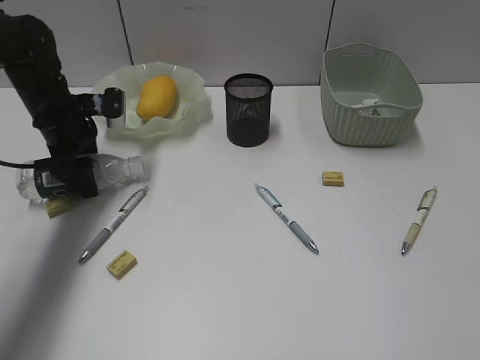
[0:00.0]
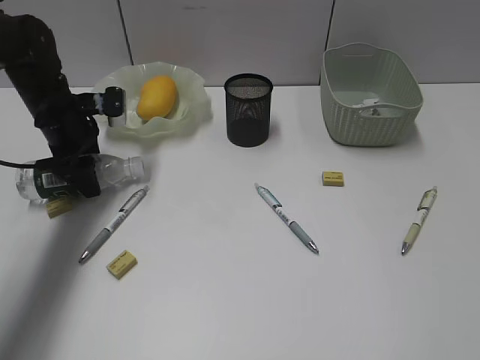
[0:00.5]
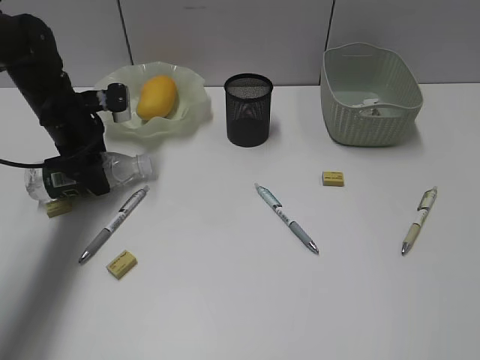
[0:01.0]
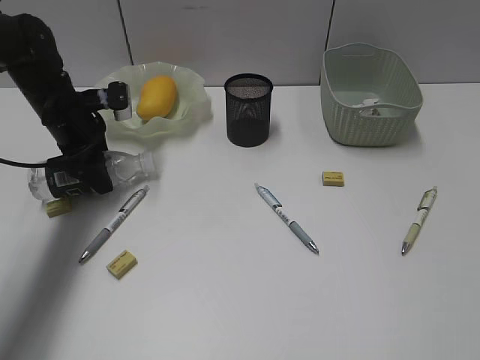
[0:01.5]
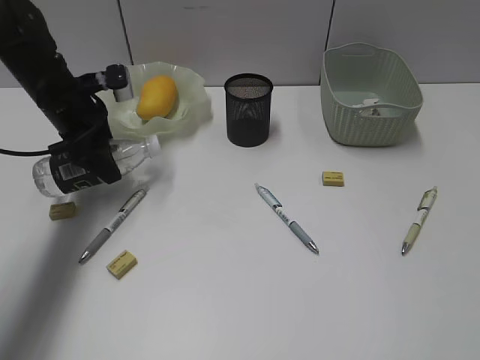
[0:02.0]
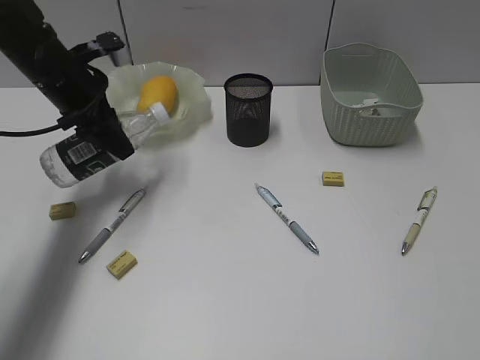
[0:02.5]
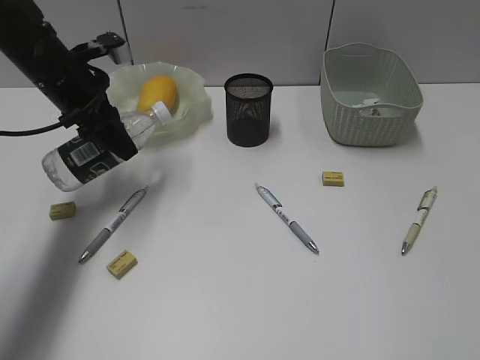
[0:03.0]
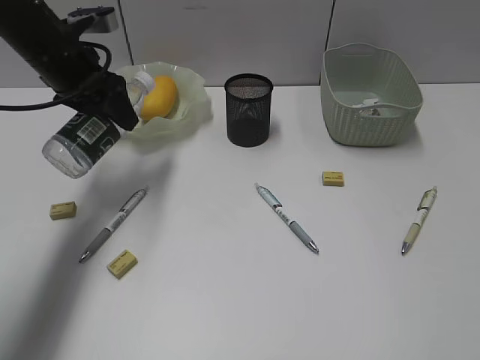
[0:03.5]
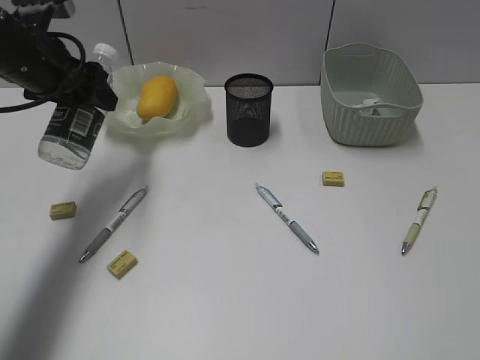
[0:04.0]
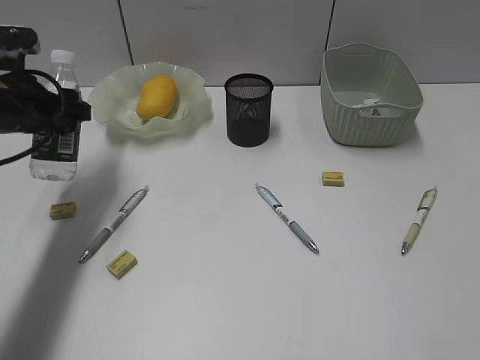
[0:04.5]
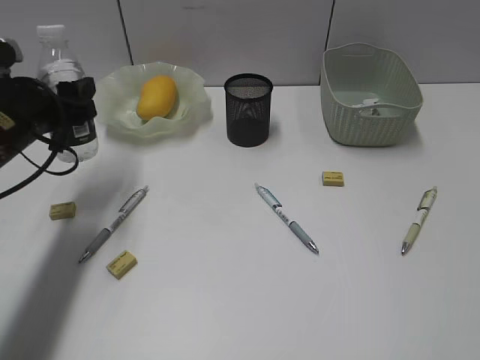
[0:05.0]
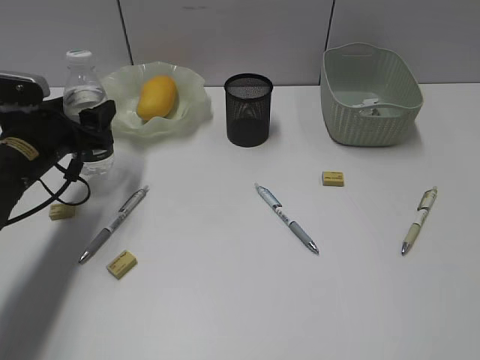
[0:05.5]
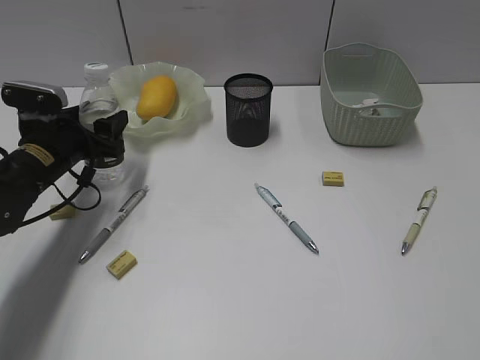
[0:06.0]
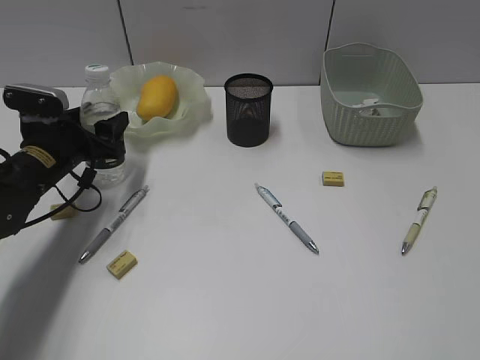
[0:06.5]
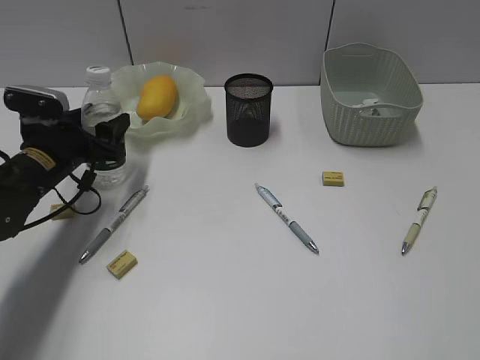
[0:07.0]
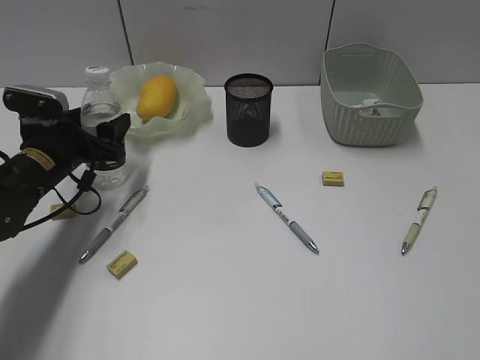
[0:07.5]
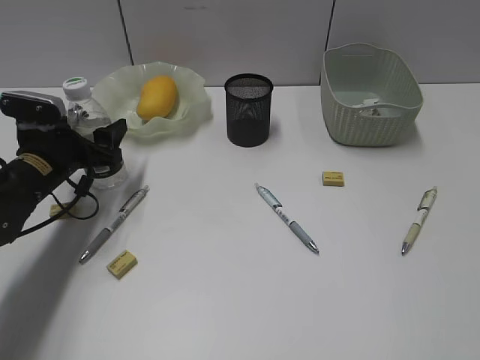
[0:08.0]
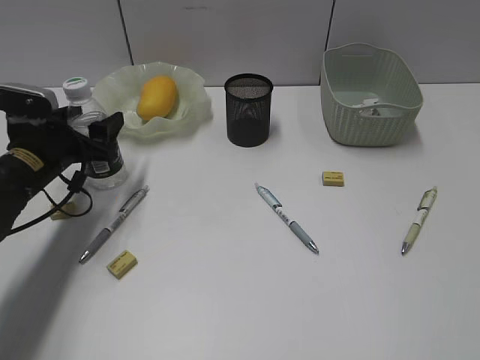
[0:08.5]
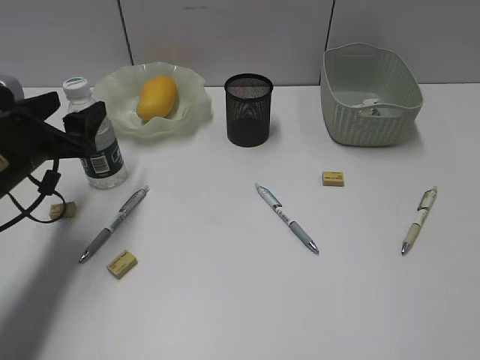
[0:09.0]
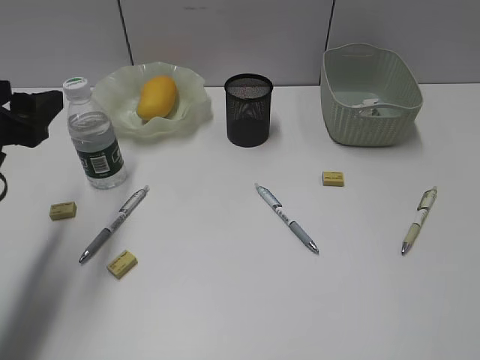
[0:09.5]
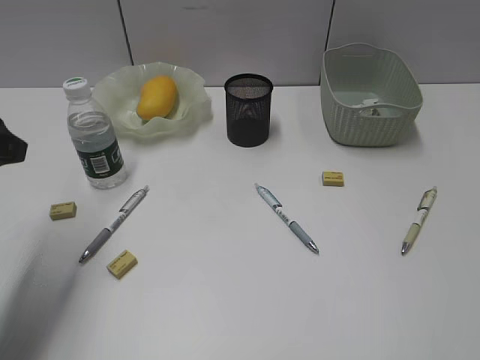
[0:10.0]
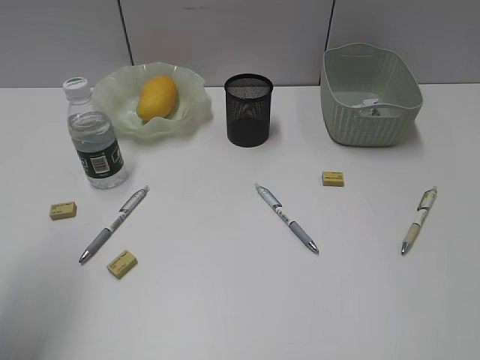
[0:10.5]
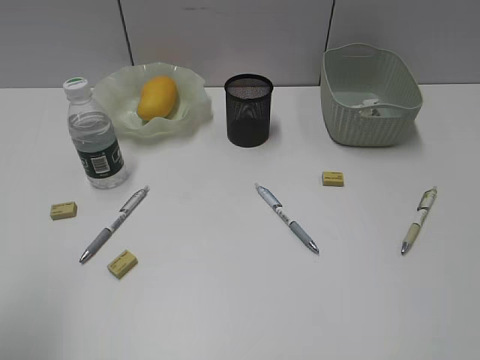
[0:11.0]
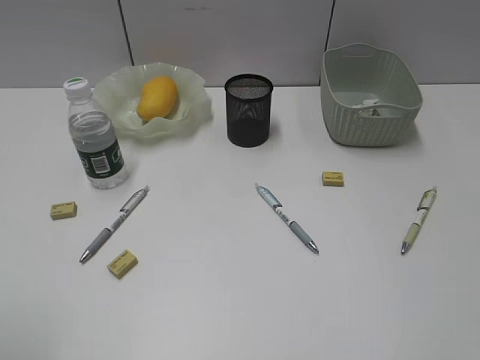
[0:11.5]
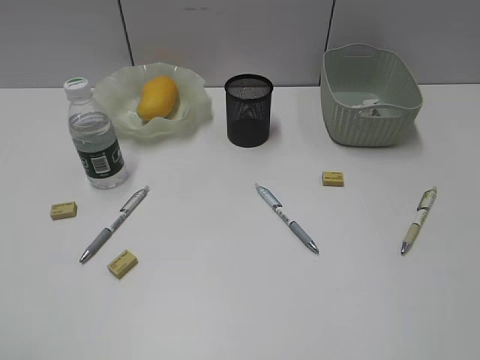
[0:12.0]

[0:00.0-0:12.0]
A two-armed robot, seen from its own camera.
Step, 0:01.5 to 0:09.0: Stand the bottle with left gripper.
0:00.0 to 0:02.0: The grippers stay close to where they were, moving slightly.
0:02.0 to 0:04.0: The left gripper goes approximately 10 cm upward.
0:04.0 to 0:06.0: The left gripper moves downward, approximately 15 cm.
0:06.0 to 0:08.0: Neither gripper changes place.
0:08.0 to 0:10.0: The left gripper goes approximately 20 cm upward and backward.
0:10.0 to 0:12.0: The left gripper goes roughly 20 cm backward.

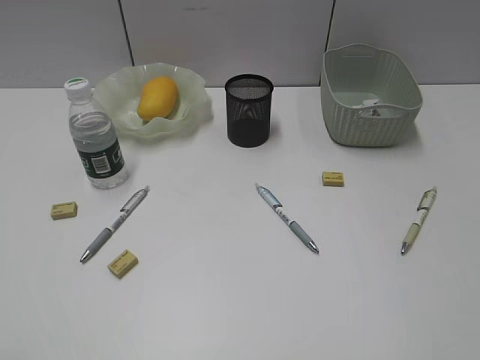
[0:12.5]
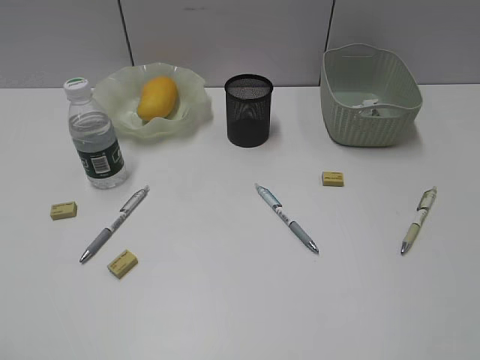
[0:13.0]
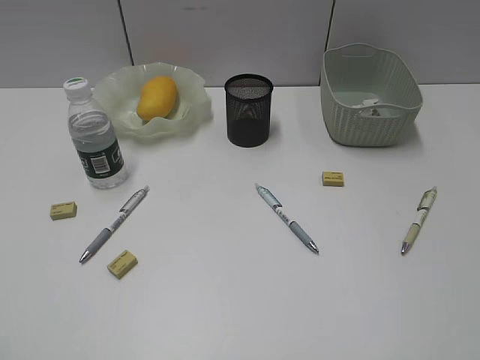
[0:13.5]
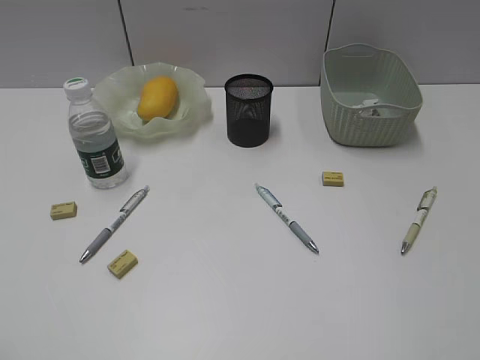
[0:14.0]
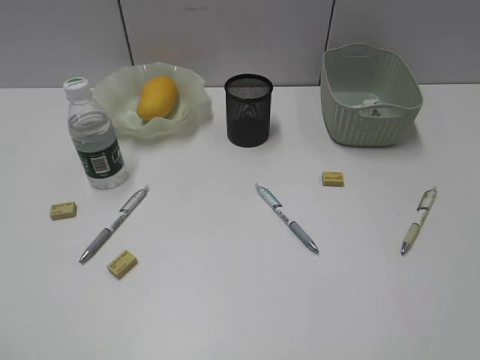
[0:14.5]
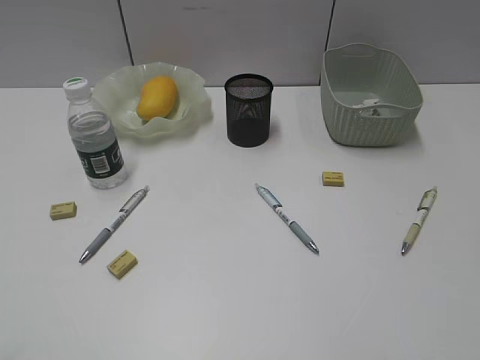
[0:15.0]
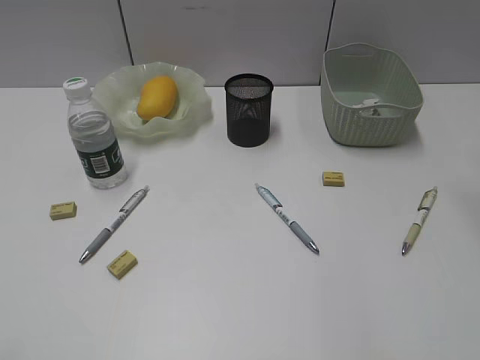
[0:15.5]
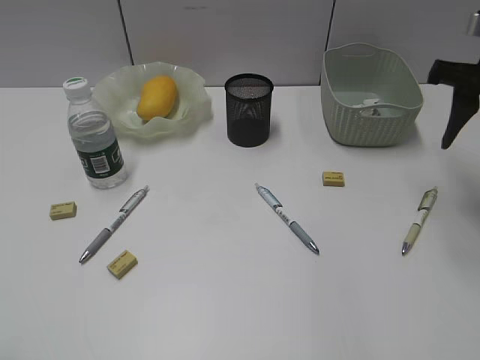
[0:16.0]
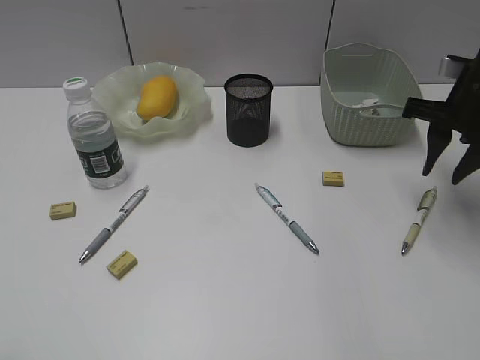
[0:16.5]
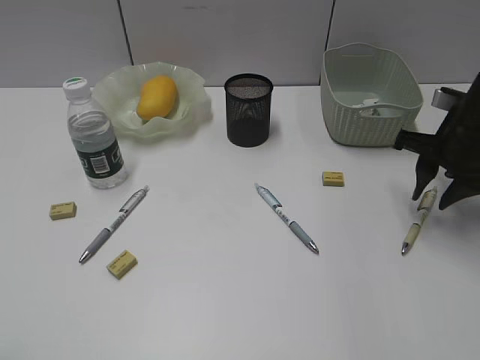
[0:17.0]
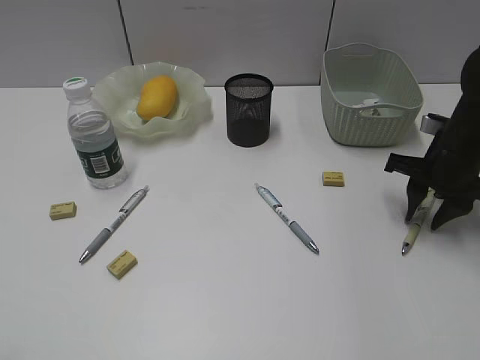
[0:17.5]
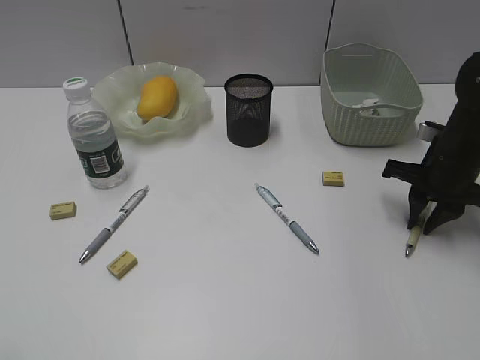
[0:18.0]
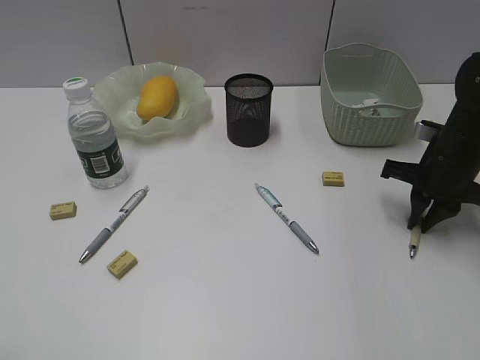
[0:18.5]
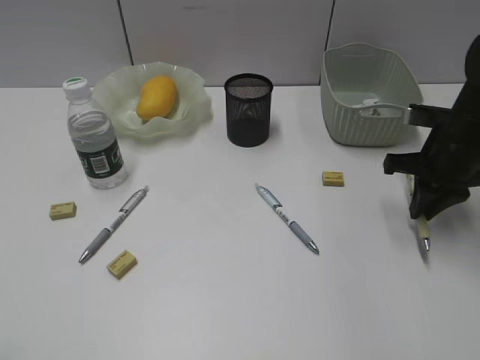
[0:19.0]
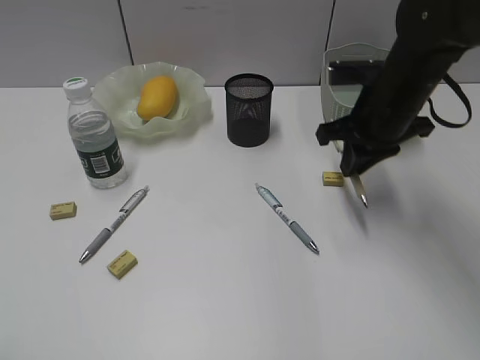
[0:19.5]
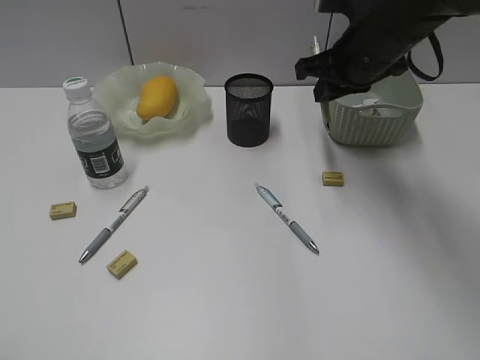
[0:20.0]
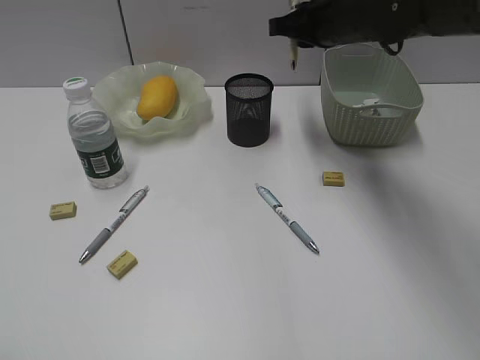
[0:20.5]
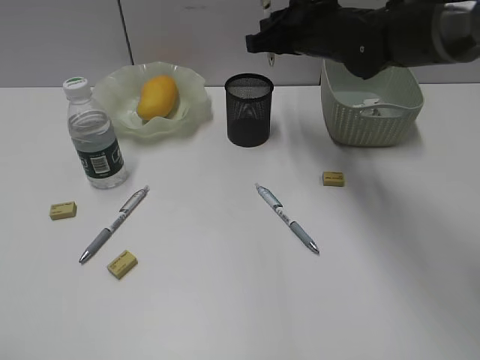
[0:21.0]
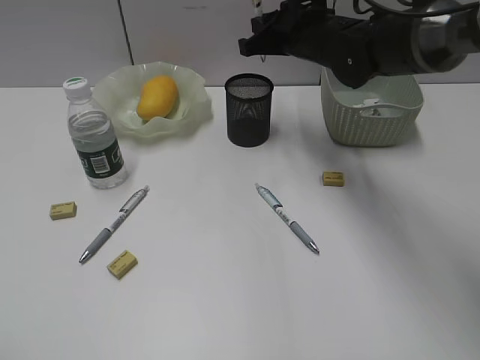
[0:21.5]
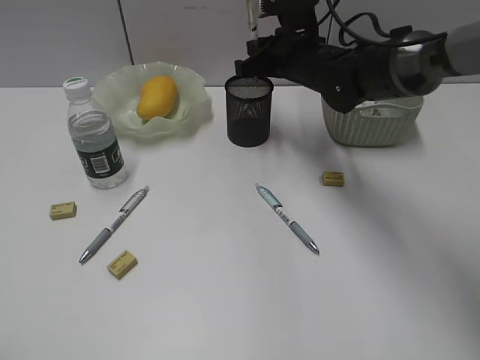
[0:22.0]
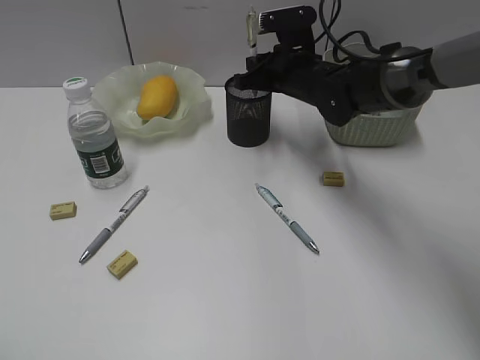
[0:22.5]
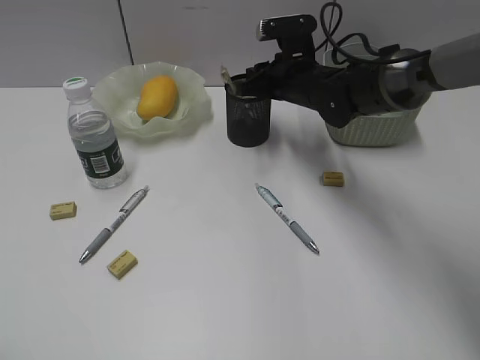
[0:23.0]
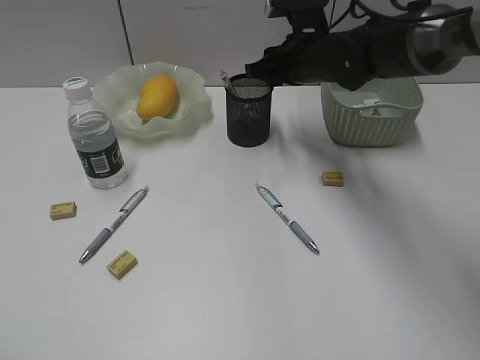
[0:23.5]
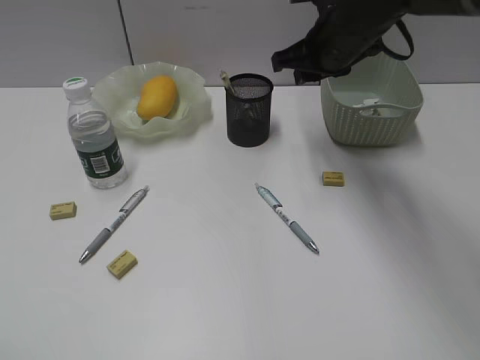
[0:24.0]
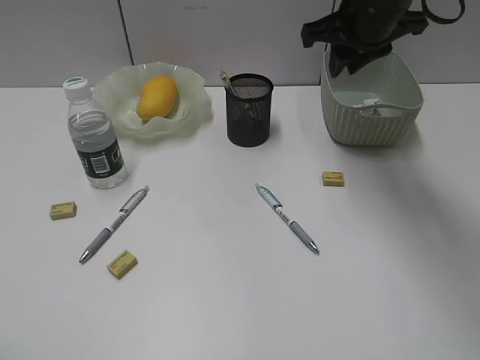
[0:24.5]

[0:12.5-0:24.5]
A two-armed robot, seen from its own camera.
Step, 0:12.5 to 0:18.5: Grasp the yellow pen with right gripper.
Step, 0:19.0 to 0:23.0: Place the yellow pen in pen holder with right gripper.
0:14.5 to 0:16.5: The right gripper moves forward, some 30 cm.
0:16.5 to 0:18.5: The right gripper moves downward, roughly 10 cm, and closes up.
0:18.5 to 0:20.5: The right gripper travels to the left, upward and forward by some 20 cm.
0:20.5 to 0:22.5: The right gripper moves downward, some 10 cm.
0:22.5 to 0:24.5: The right gripper shifts approximately 15 cm upward and to the right.

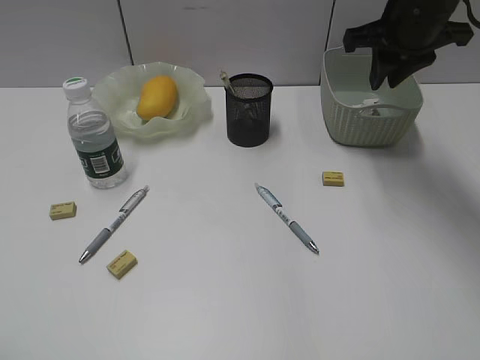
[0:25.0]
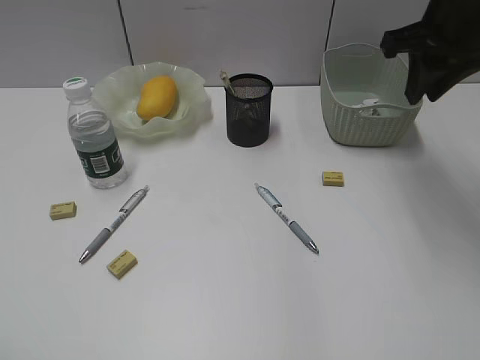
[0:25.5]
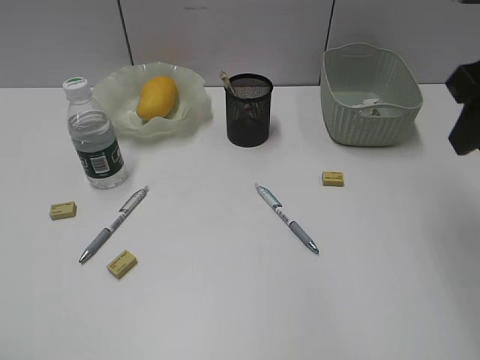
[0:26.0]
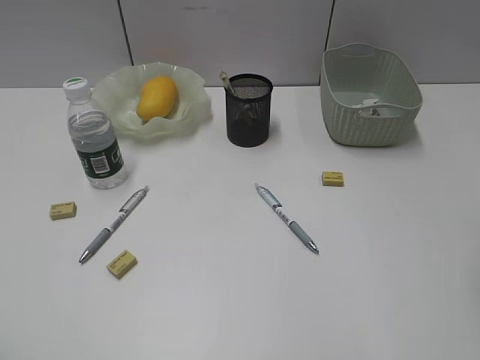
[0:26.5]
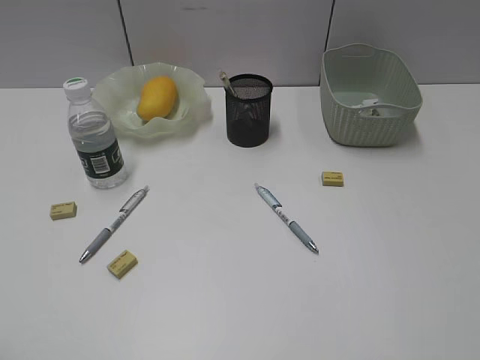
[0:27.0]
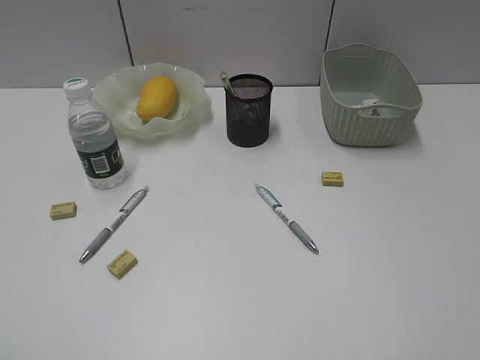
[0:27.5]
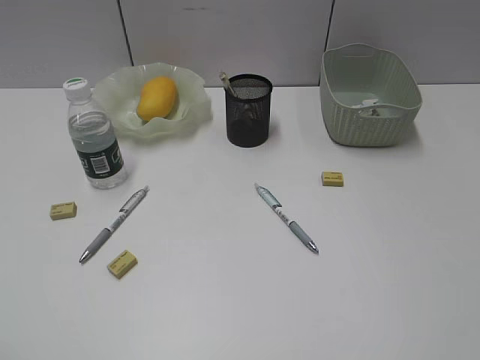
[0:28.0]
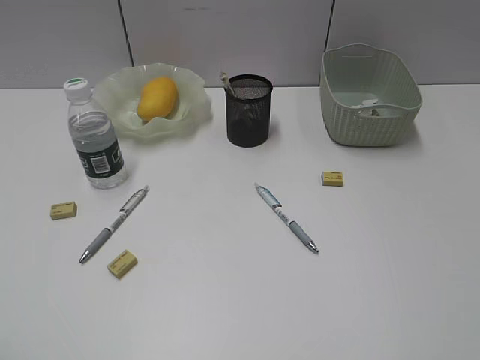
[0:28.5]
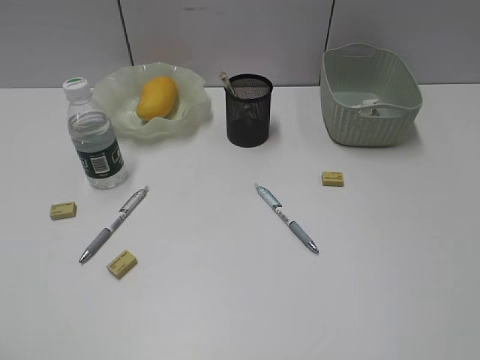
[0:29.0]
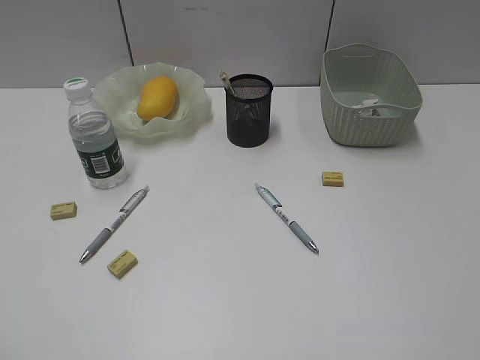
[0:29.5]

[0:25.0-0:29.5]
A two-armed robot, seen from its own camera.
0:25.0 to 0:27.0: The right gripper shifts roughly 35 cm backward.
